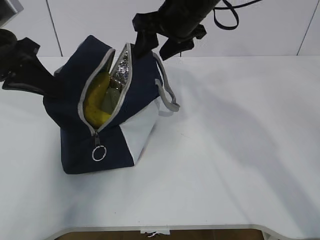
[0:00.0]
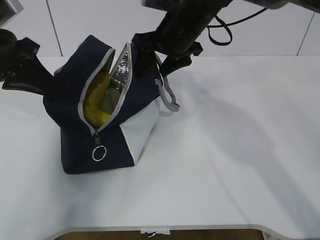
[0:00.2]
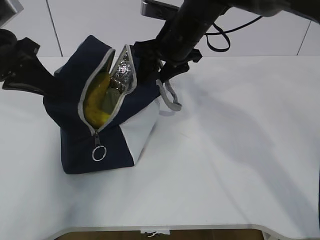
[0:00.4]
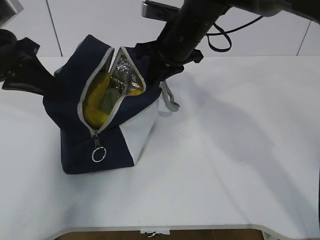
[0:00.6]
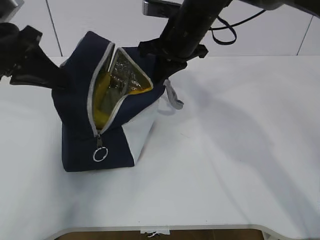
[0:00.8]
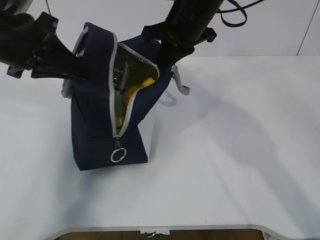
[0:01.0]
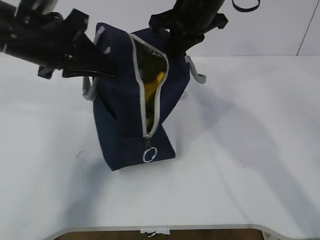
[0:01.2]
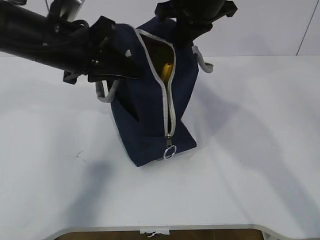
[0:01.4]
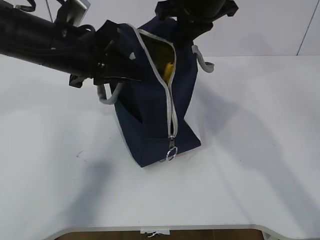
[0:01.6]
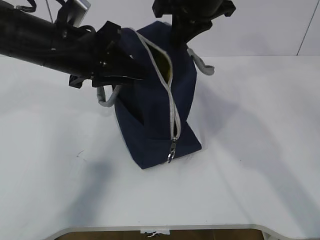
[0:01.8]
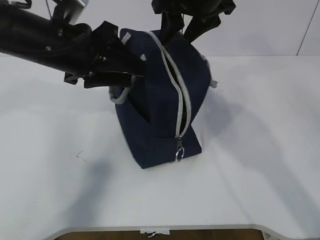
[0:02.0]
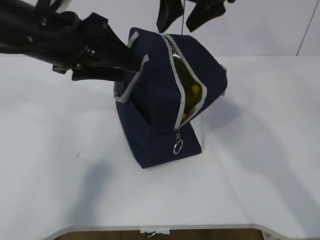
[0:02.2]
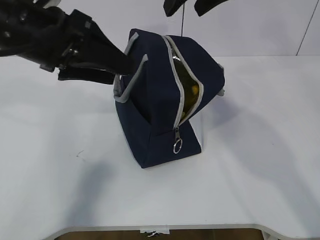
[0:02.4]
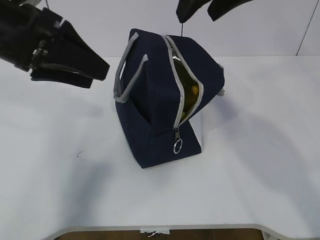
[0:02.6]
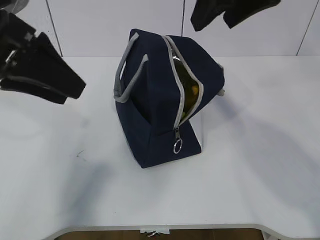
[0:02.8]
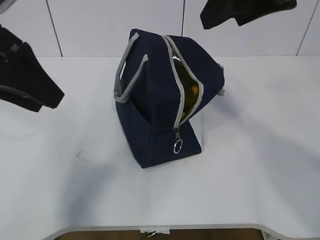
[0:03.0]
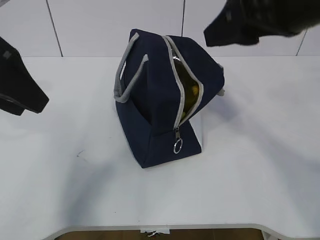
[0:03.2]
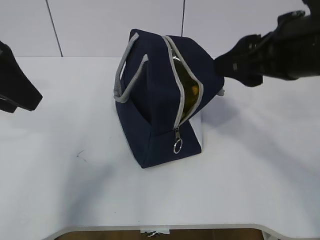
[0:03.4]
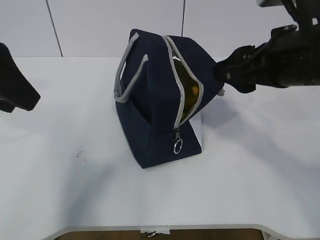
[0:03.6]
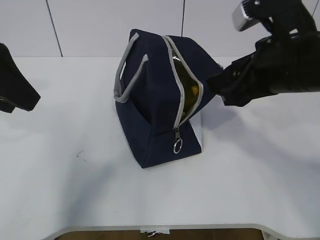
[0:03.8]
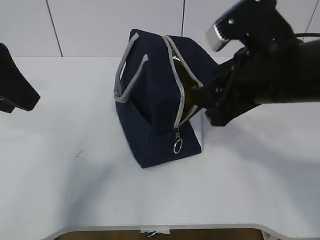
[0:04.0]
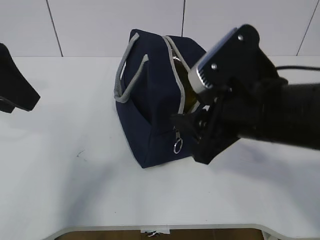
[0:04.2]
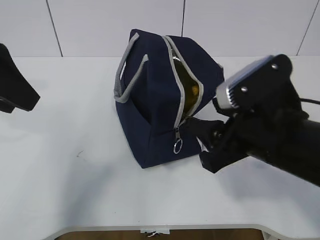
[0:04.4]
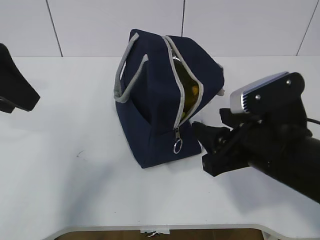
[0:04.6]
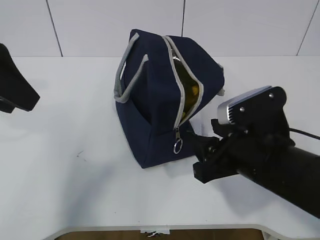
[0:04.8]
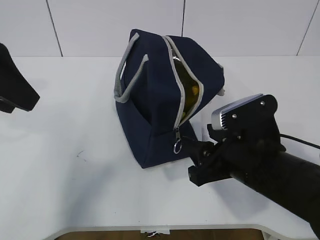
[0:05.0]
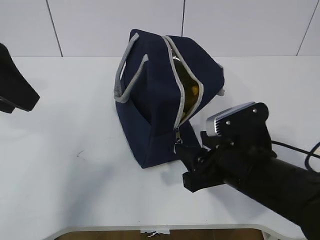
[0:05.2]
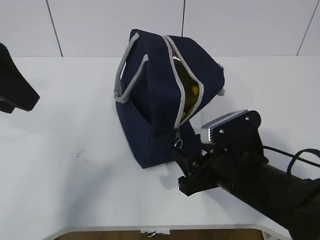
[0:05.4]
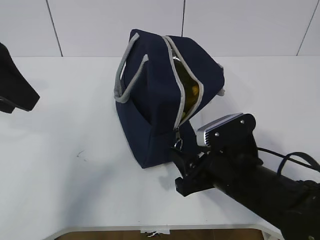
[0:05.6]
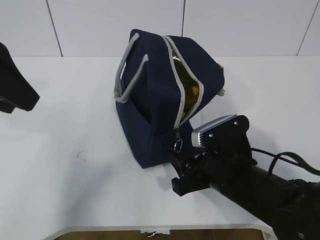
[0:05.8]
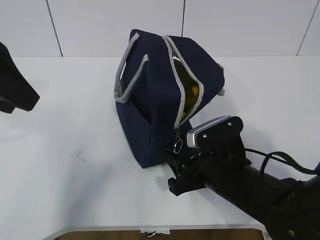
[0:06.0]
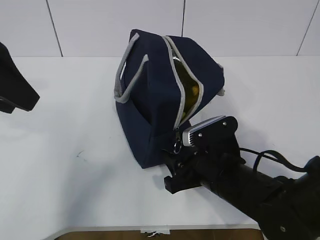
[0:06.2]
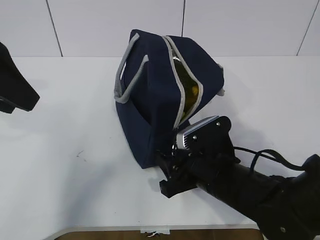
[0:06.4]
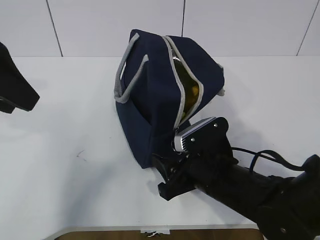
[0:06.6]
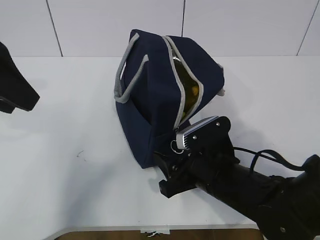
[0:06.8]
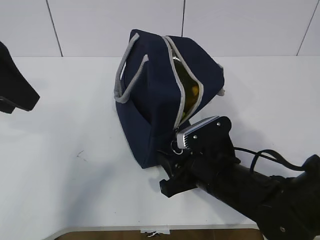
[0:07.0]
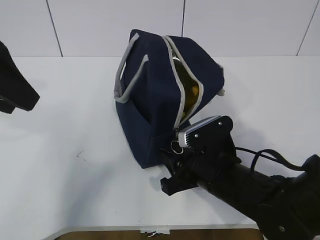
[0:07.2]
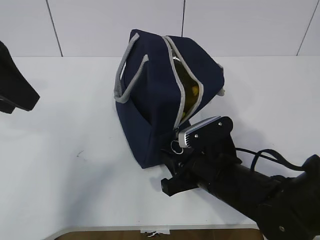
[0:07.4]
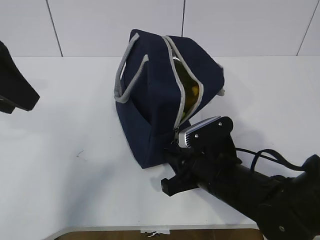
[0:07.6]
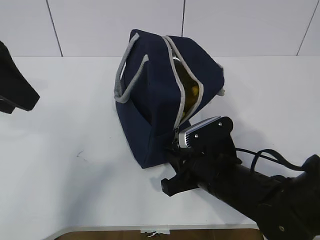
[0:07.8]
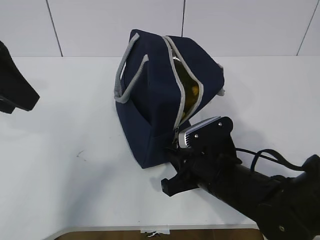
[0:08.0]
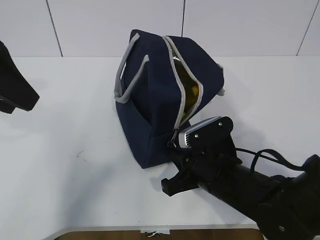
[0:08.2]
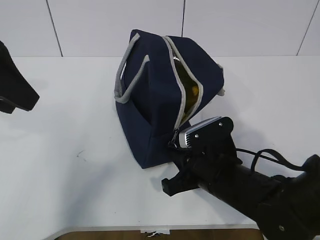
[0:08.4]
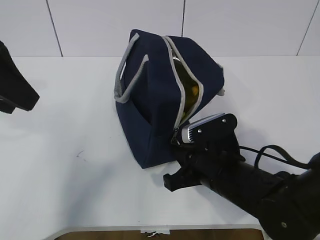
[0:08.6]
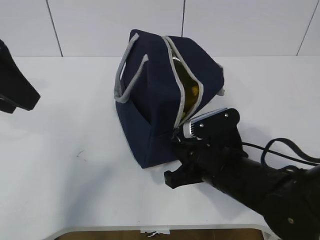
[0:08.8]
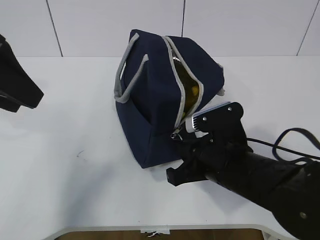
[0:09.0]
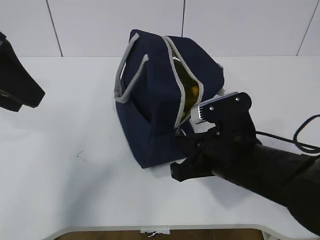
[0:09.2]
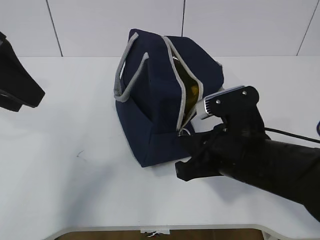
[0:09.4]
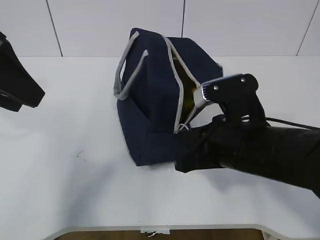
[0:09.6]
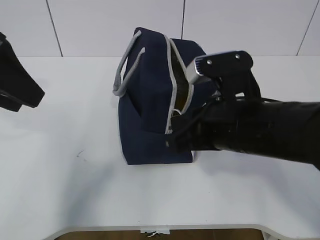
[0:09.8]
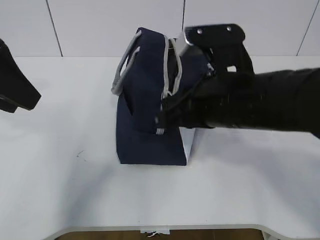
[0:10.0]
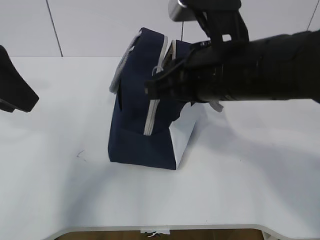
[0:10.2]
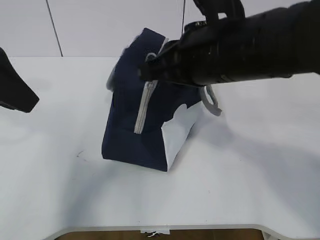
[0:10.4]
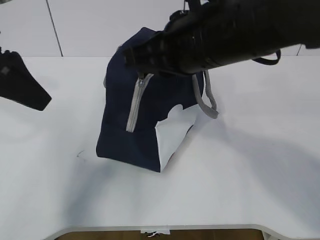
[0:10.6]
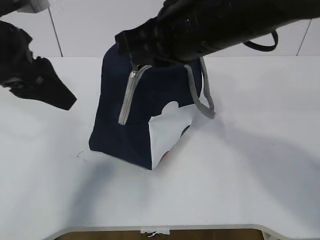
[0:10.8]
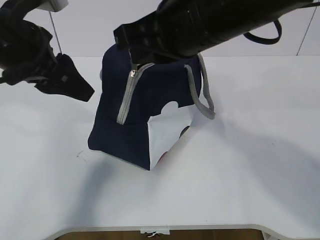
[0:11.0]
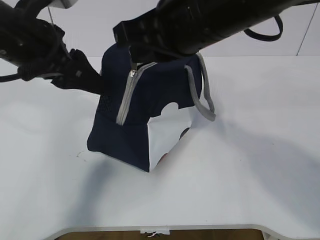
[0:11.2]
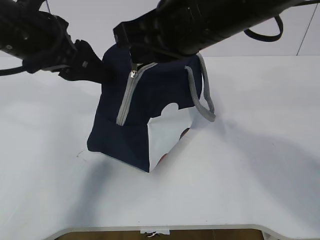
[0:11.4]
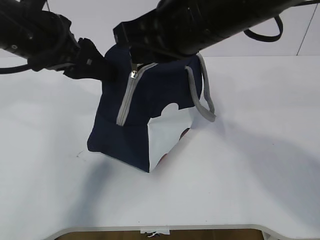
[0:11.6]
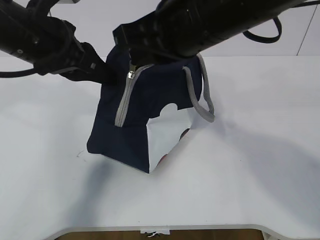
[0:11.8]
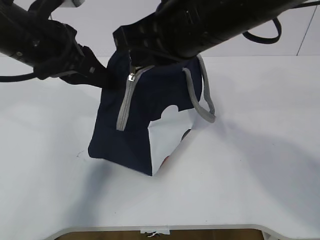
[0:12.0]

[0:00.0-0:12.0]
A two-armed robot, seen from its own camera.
Step, 0:00.0 to 0:07.8: Grab the lunch bag with your left hand.
Step, 0:08.2 to 0:11.2: Pull the zipper with your right hand.
0:00.0 to 0:01.6: The left gripper heads to the right, covering about 10 cm. The right gripper closes.
0:01.6 to 0:03.0: The left gripper travels to the left, backward and upward by roughly 10 cm, and opens, while the right gripper shifts roughly 15 cm backward and upward, and opens up.
0:03.0 to 0:04.4: The right gripper moves downward and backward, approximately 20 cm.
0:04.4 to 0:06.0: The right gripper shifts some 10 cm downward.
0:06.0 to 0:07.6: The right gripper closes its fingers.
0:07.6 to 0:09.0: The right gripper closes up.
0:09.0 to 0:10.4: The right gripper heads upward, covering some 15 cm.
0:10.4 to 0:12.0: The left gripper is displaced to the right and forward by roughly 10 cm, and closes up.

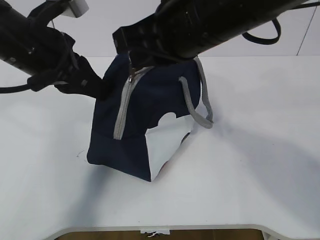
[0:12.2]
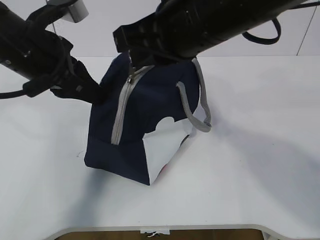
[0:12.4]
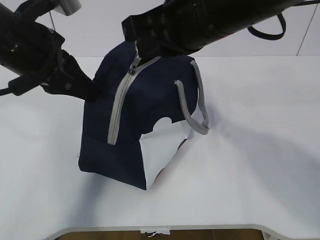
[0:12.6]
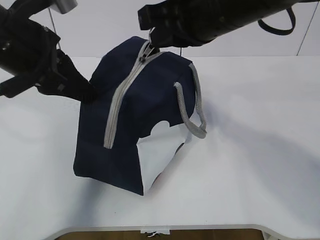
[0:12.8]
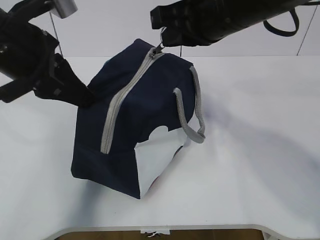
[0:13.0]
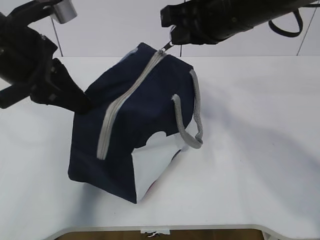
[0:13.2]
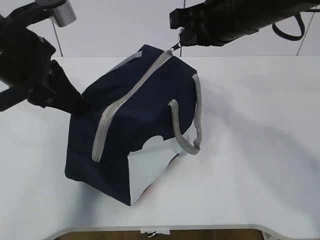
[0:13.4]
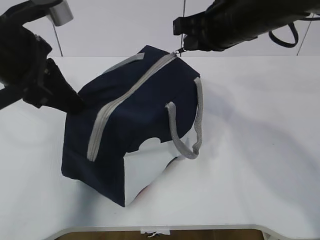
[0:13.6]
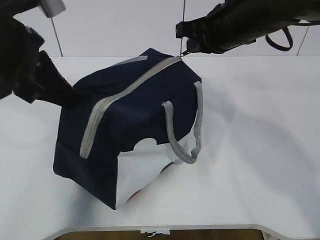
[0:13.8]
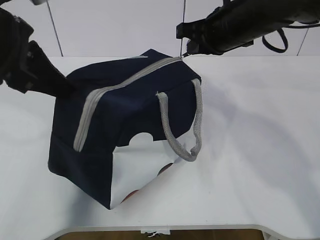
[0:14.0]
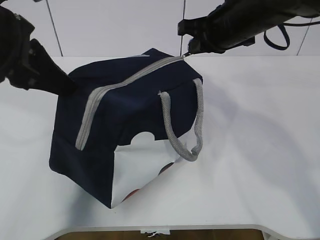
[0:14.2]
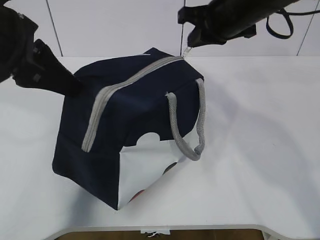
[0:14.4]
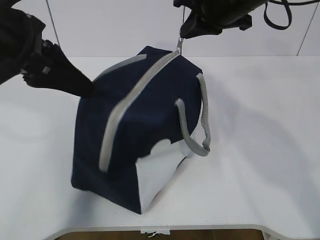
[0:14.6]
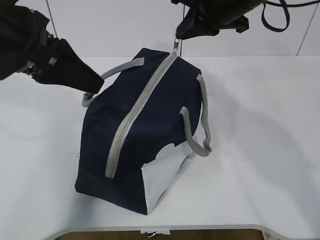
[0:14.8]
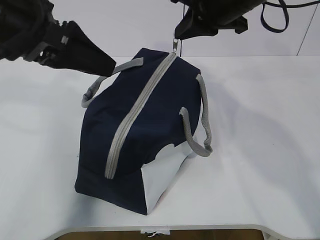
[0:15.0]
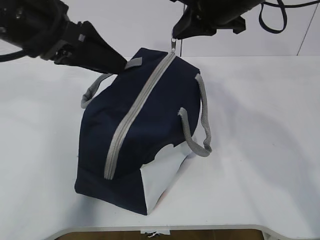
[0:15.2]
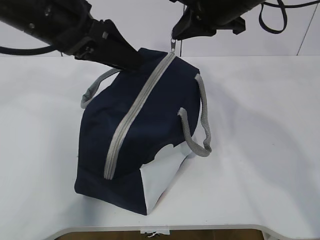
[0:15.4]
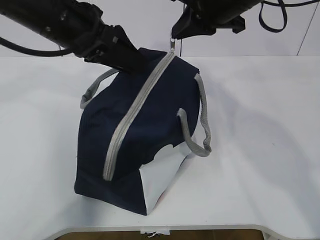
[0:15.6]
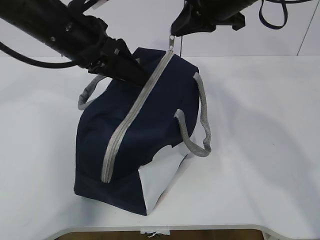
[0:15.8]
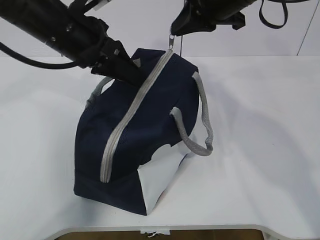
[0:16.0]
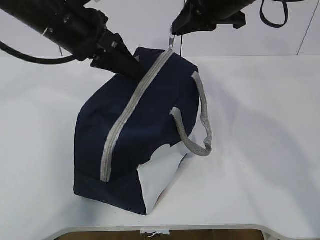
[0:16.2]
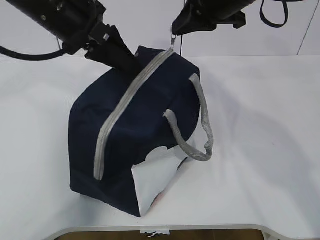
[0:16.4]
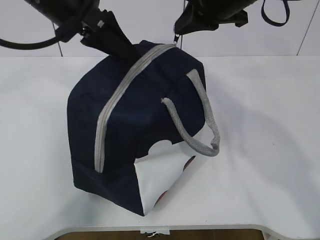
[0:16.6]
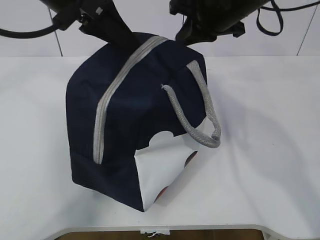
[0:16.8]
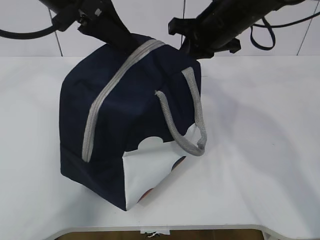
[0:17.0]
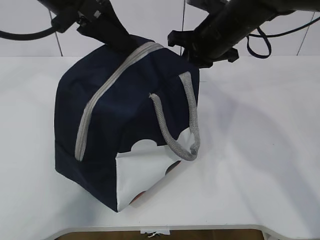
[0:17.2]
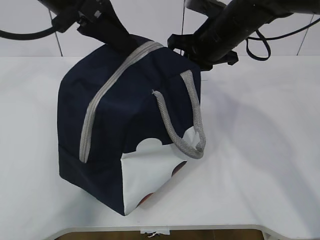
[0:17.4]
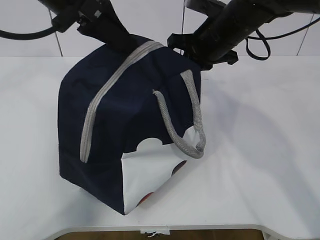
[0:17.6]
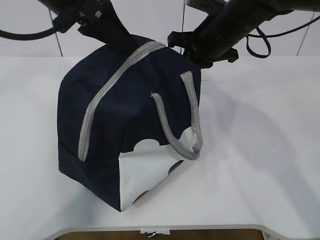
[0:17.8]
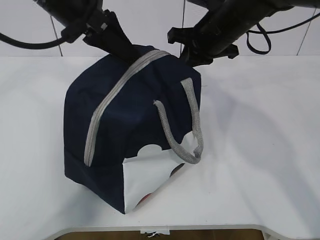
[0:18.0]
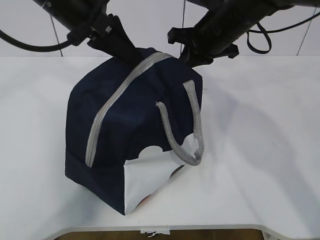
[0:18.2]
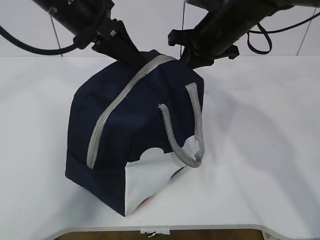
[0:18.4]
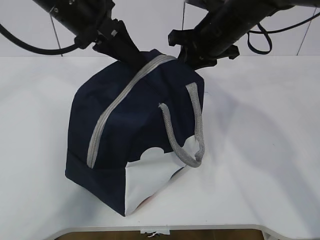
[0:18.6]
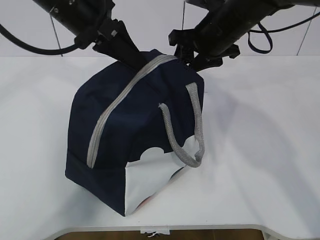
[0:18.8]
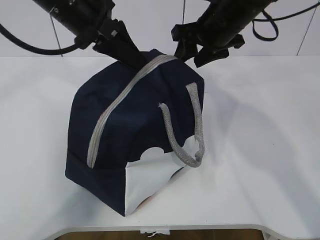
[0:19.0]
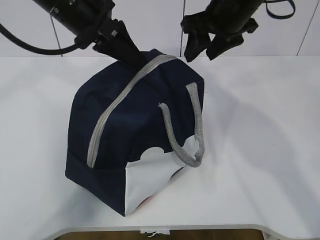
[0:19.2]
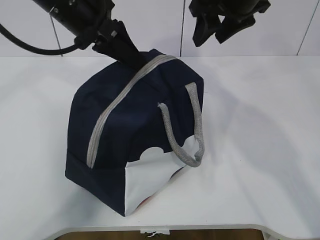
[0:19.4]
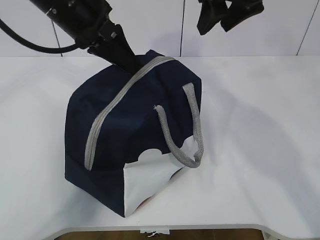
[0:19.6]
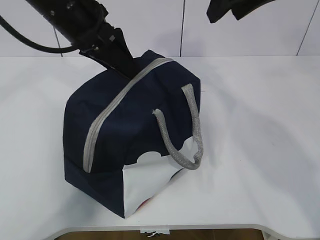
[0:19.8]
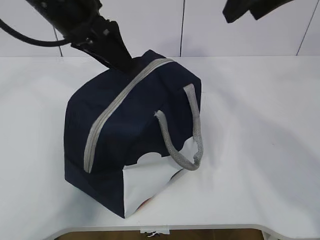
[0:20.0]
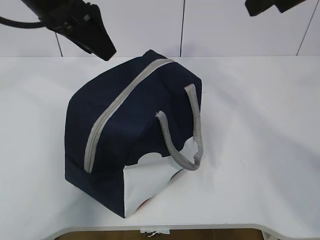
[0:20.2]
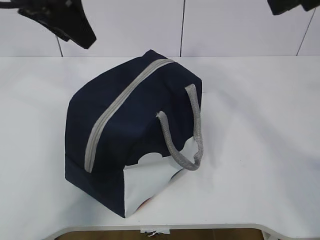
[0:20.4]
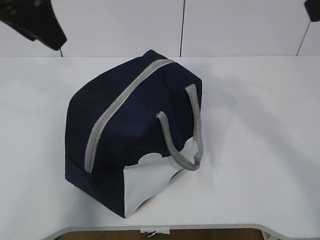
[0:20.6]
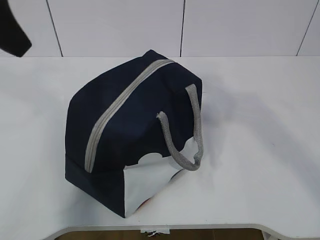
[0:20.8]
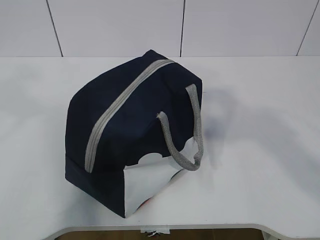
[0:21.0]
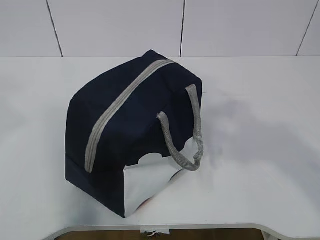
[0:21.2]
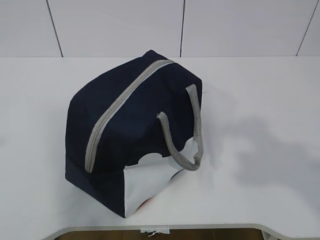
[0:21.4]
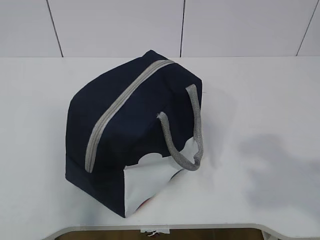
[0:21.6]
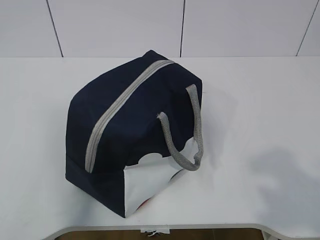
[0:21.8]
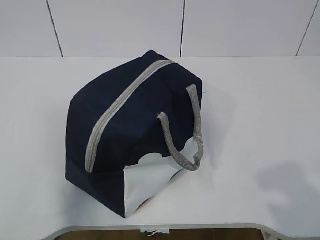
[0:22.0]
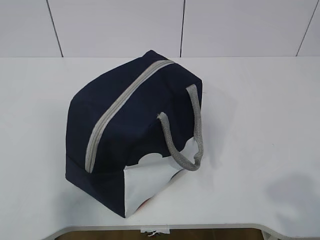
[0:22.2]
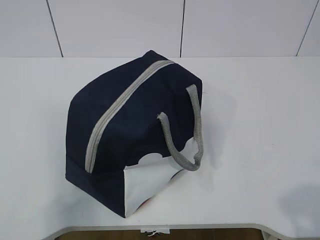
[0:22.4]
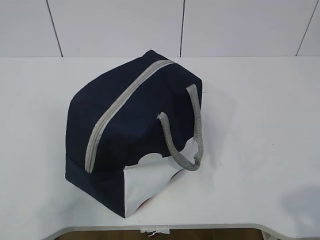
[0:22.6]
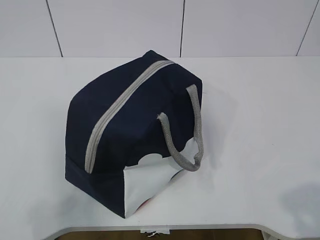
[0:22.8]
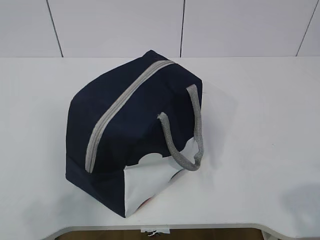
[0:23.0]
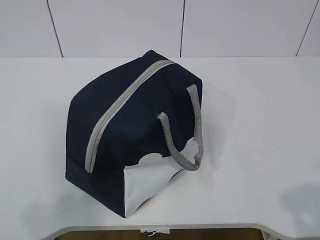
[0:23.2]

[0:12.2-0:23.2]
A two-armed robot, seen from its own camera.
0:12.2 to 0:13.8: The right gripper travels forward, to the right and downward by approximately 15 cm. The left gripper shifts by about 5 cm.
0:13.8 to 0:15.4: The left gripper heads forward, covering approximately 5 cm, and opens.
0:15.4 to 0:17.0: The left gripper closes; the right gripper moves some 5 cm.
0:17.0 to 0:18.4: The grippers stay close to where they were, moving slightly.
0:18.4 to 0:20.0: The right gripper shifts about 15 cm upward and backward, and opens its fingers. The left gripper opens its fingers.
0:20.0 to 0:21.6: The left gripper goes about 35 cm backward and to the left, while the right gripper moves backward, some 30 cm.
0:21.6 to 0:23.2: The left gripper travels downward and backward by some 15 cm. The right gripper shifts approximately 10 cm downward.
